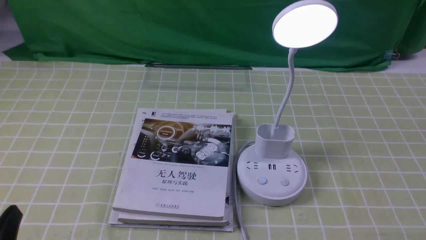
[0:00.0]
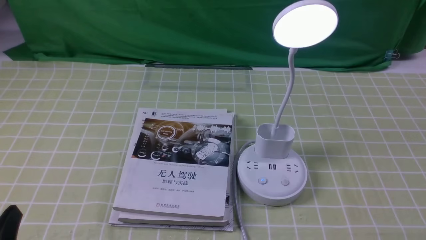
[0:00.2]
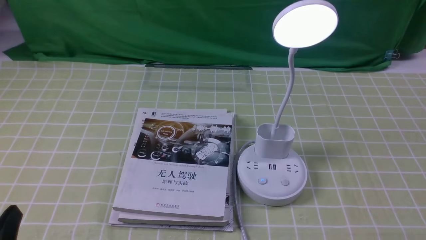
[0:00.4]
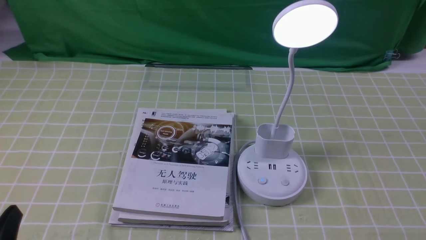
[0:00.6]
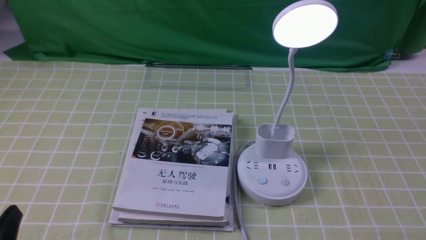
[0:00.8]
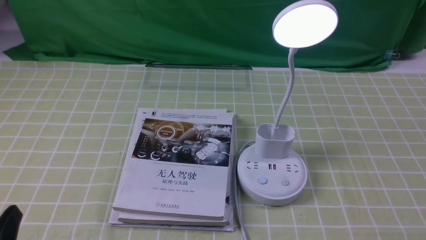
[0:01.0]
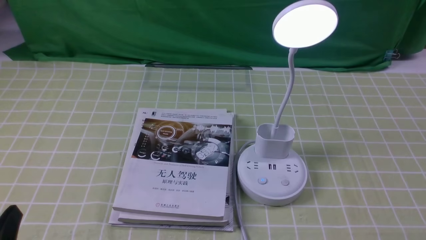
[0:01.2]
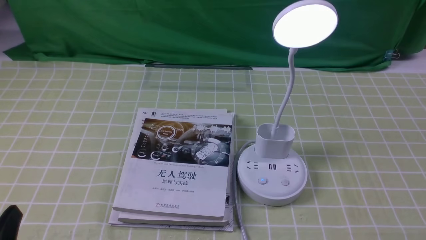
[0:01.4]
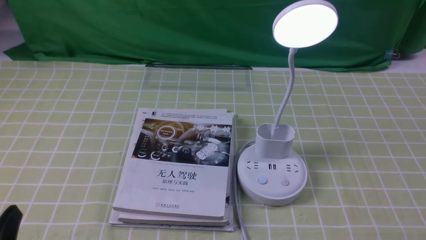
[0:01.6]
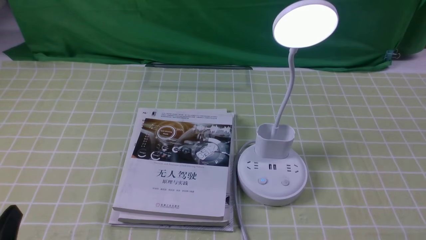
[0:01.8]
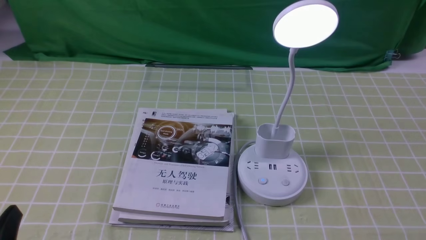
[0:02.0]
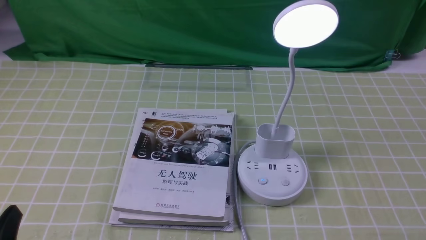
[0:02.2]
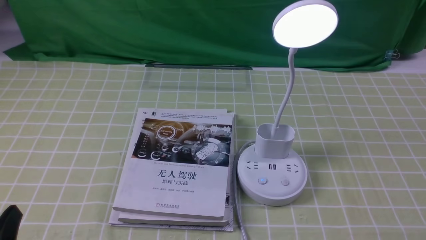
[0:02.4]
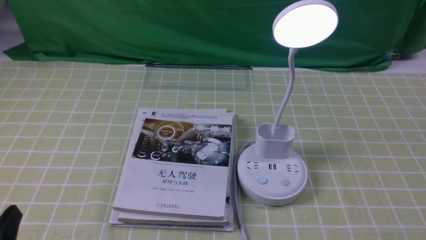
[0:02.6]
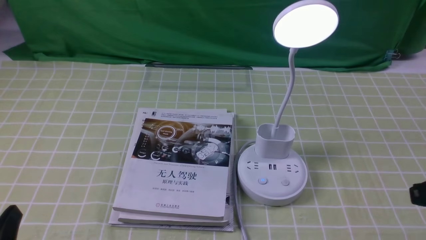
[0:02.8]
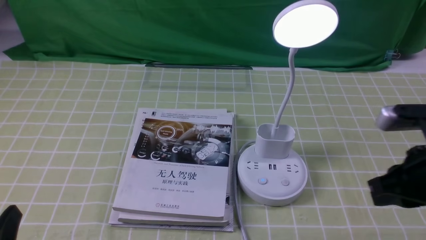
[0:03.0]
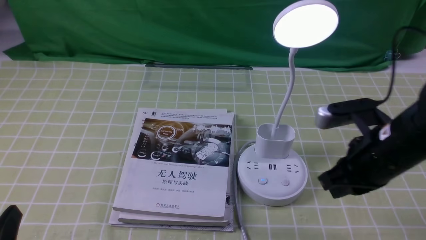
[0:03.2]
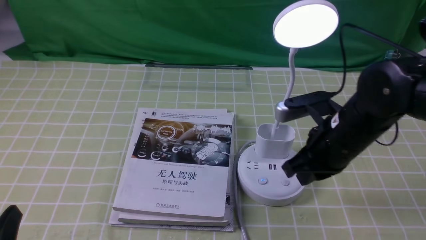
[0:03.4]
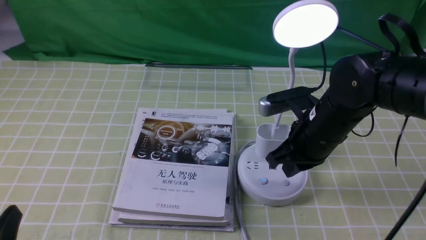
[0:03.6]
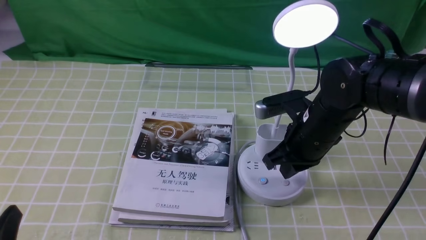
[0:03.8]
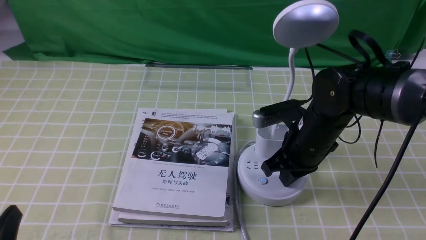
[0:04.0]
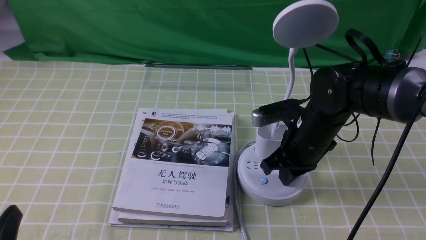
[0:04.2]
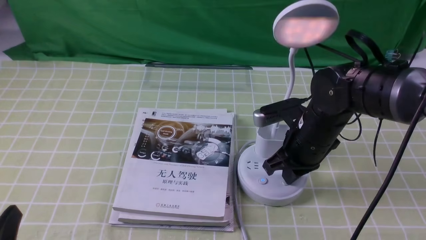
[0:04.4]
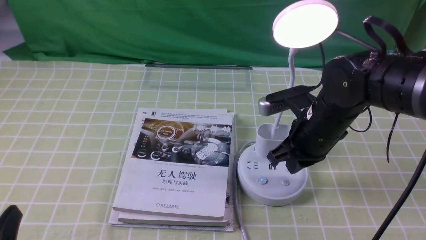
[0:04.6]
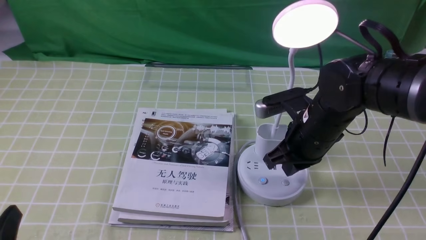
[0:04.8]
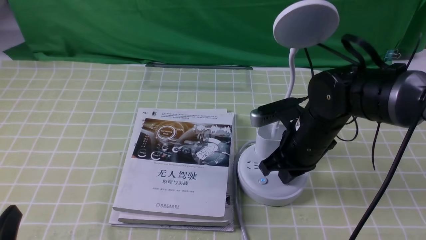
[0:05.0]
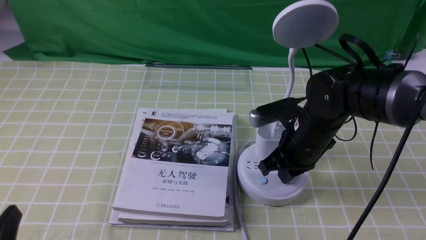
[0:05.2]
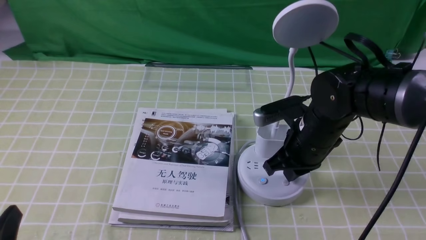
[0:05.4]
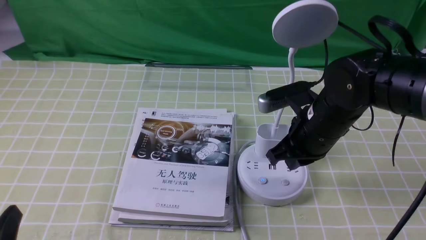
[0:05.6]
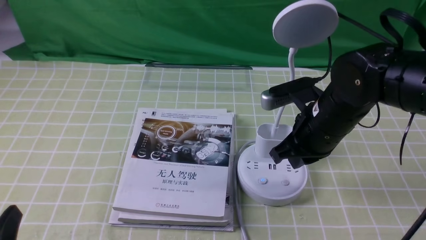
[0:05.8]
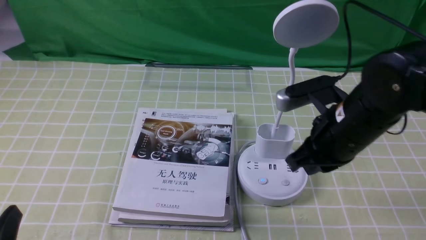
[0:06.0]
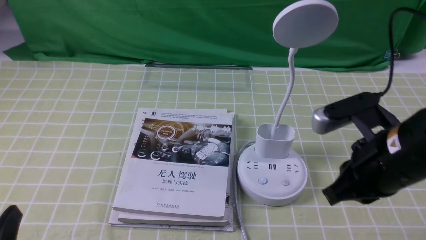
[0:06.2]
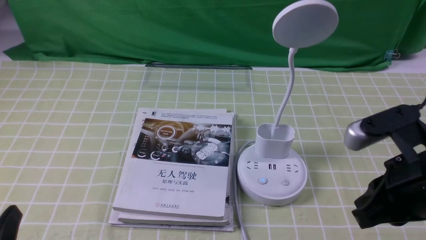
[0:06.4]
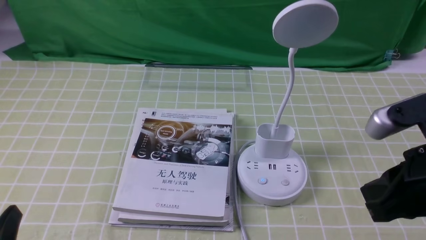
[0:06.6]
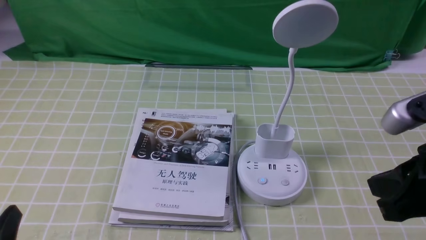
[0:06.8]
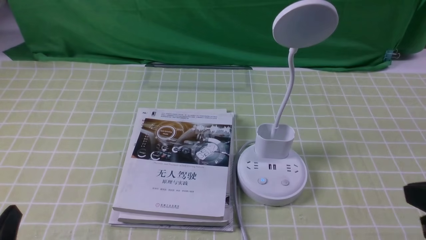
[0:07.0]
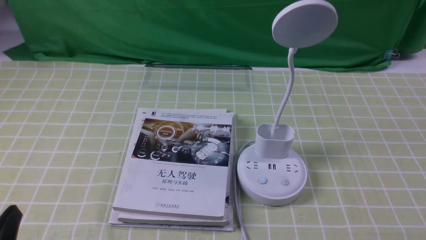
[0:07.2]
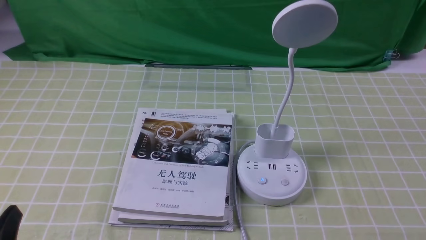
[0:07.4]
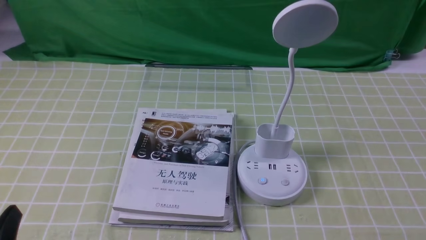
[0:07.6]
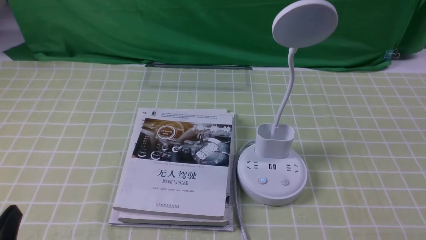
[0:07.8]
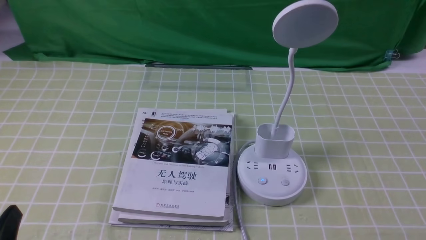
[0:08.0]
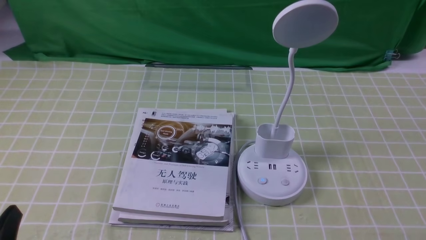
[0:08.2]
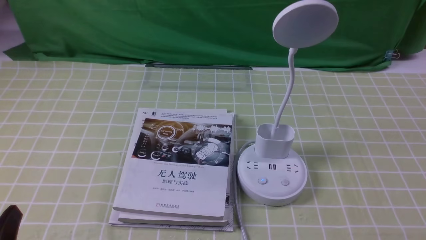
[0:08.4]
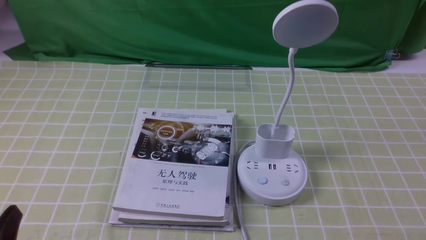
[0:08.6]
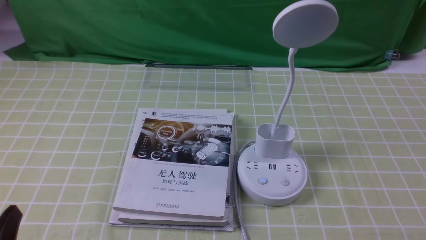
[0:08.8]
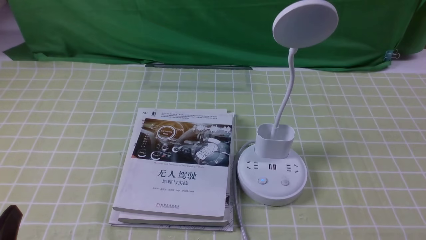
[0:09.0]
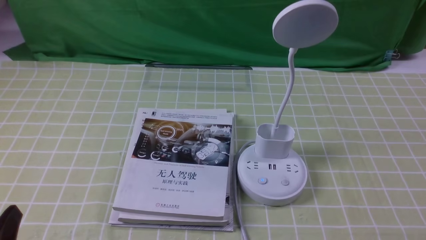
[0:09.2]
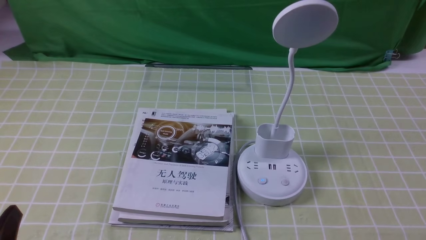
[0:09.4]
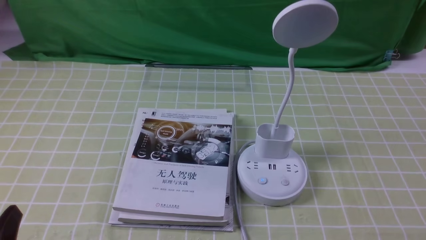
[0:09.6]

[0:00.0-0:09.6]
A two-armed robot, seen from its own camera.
Task of the whole recording: turn off the desk lamp on the green coffee tablecloth by hand.
Step, 0:00.0 to 0:05.8: use the right arm to press the button switch on the lamp holder.
0:01.6 to 0:03.2: The right gripper shifts about 25 cm forward and to the left, and closes up.
0:03.2 to 0:04.8: The right gripper travels to the left and forward by approximately 10 cm.
0:04.8 to 0:06.4: The right gripper heads backward, upward and to the right, covering approximately 20 cm.
0:06.4 to 0:08.0: The right gripper goes approximately 20 cm backward, to the right and downward.
